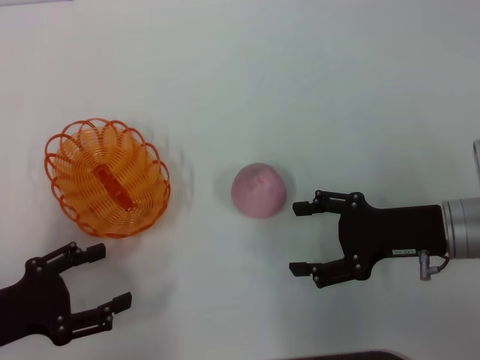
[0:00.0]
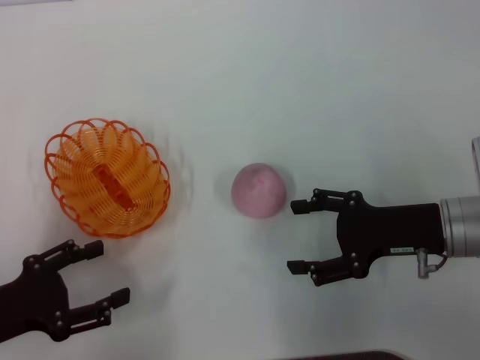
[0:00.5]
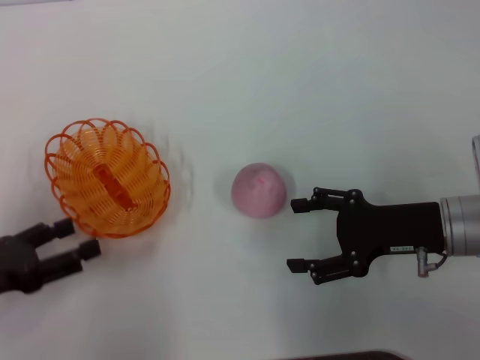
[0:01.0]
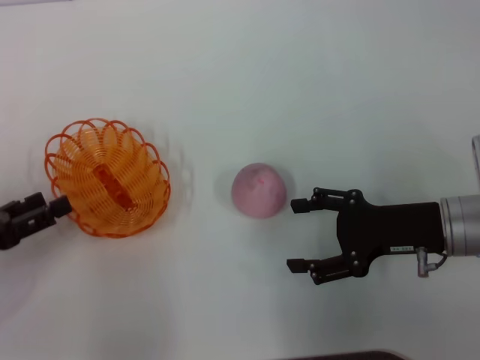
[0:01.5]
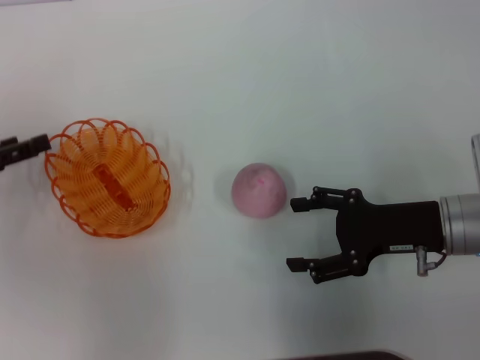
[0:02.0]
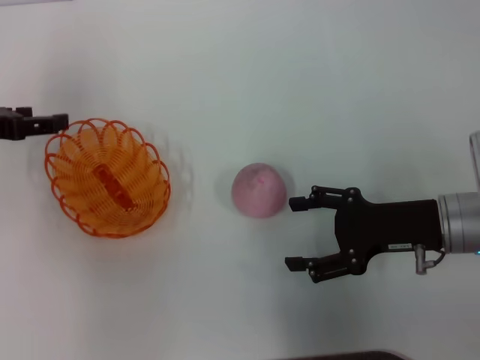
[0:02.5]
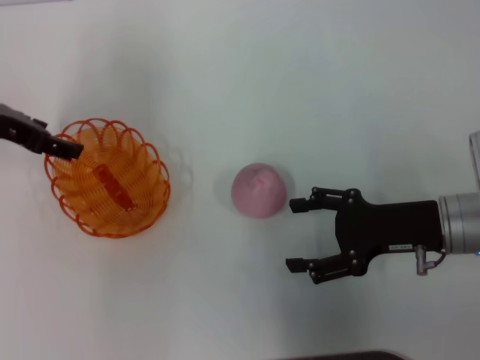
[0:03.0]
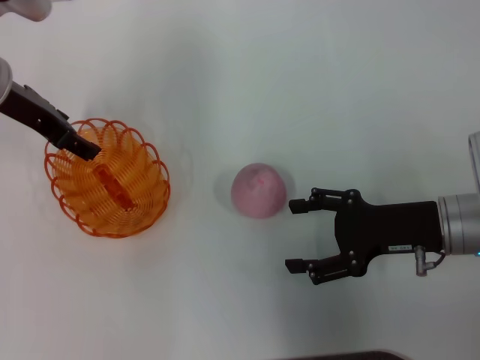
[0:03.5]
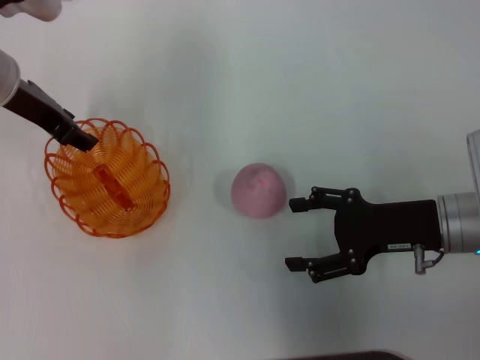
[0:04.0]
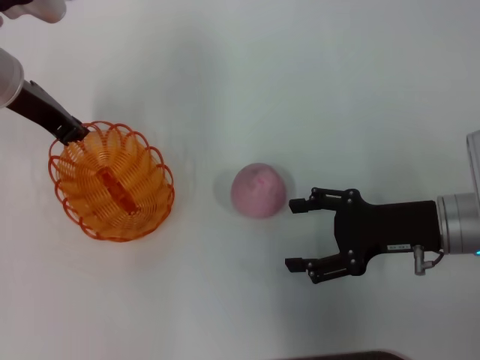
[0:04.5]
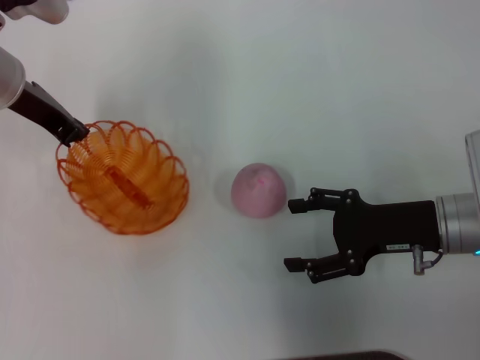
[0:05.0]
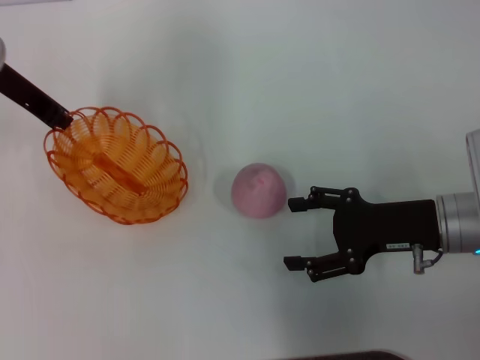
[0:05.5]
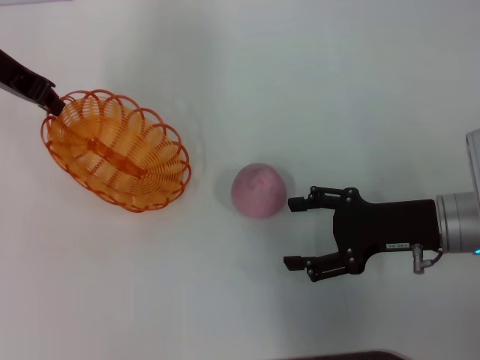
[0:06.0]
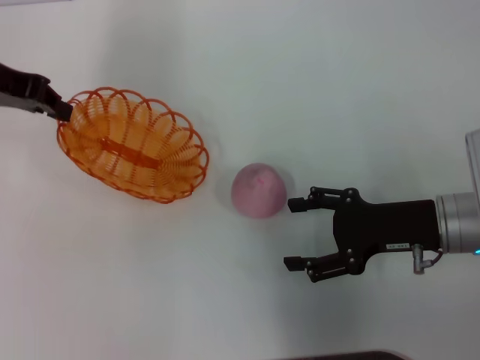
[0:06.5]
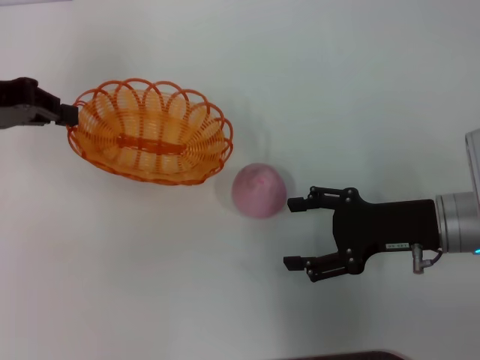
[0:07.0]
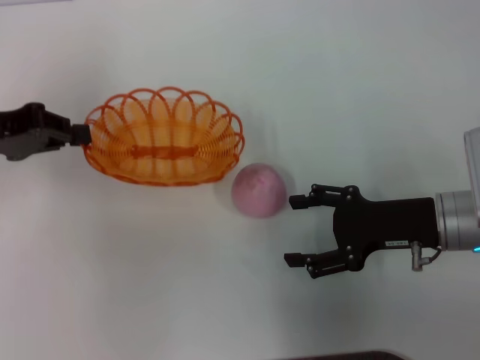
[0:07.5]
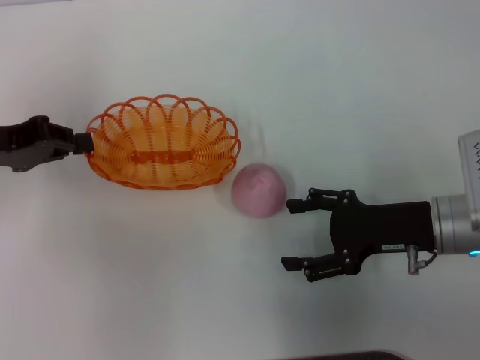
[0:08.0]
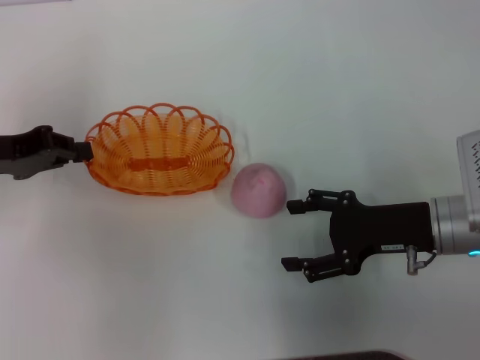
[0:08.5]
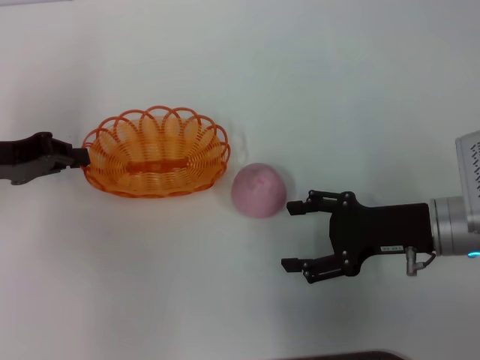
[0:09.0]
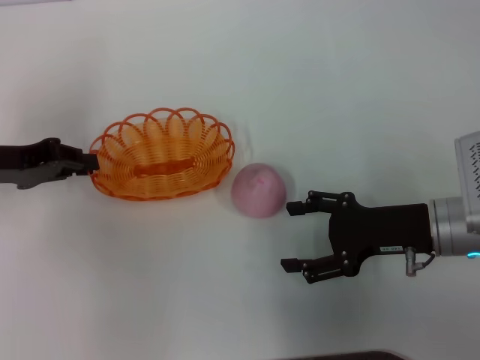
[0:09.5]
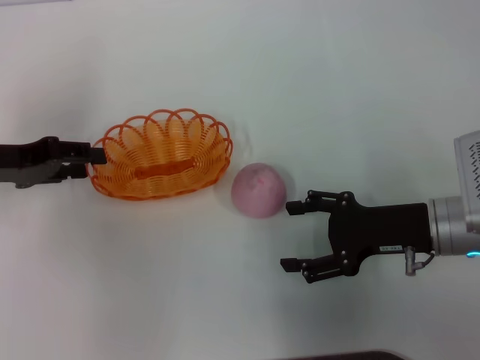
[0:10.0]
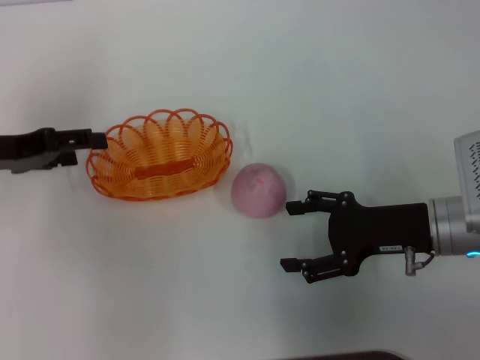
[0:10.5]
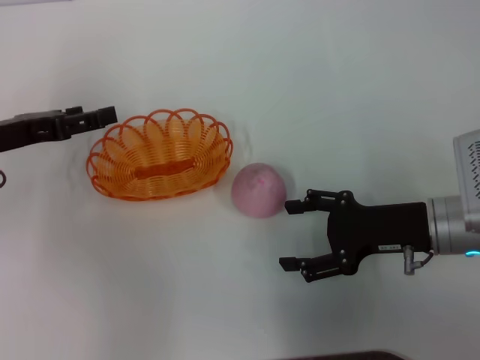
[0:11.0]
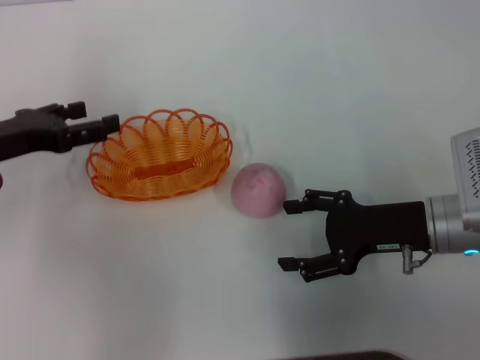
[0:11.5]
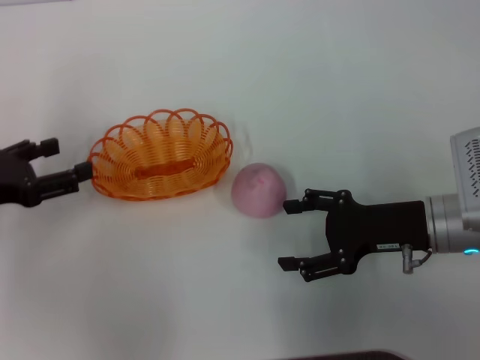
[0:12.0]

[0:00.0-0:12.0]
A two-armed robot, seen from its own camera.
Step, 0:00.0 to 0:05.5: Pick up the basket with the left gripper.
Step, 0:06.0 to 0:10.0: Place the basket in the center of view with the left gripper.
0:00.0 to 0:02.0: The left gripper goes about 10 cm forward.
0:02.0 to 0:04.0: The left gripper travels to the right, forward and upward by approximately 20 cm.
0:04.0 to 0:06.0: The left gripper heads upward, covering roughly 5 cm, and closes its fingers.
0:06.0 to 0:08.0: The left gripper is displaced backward, downward and to the left by roughly 15 cm.
0:08.0 to 0:10.0: The left gripper opens its fingers.
0:10.0 to 0:12.0: The left gripper shifts roughly 5 cm backward, and opens up.

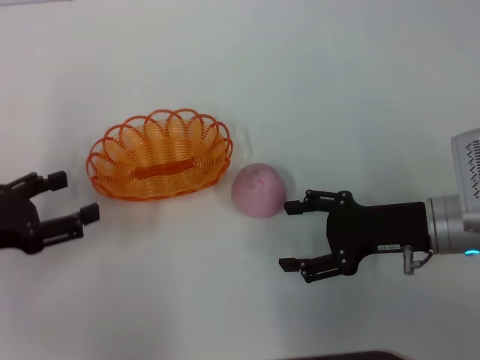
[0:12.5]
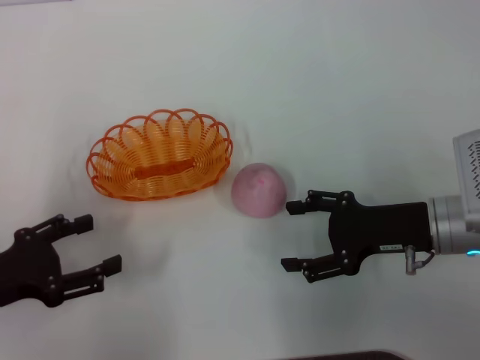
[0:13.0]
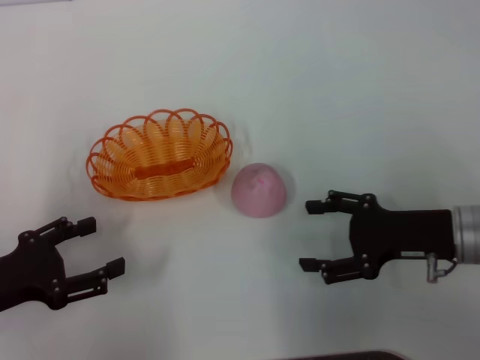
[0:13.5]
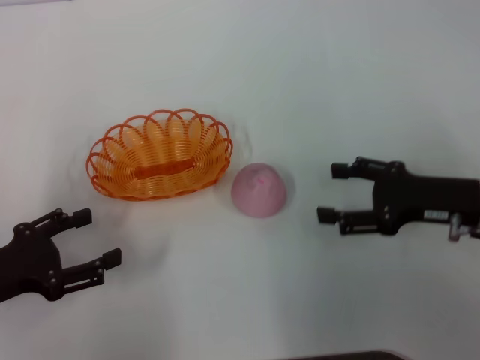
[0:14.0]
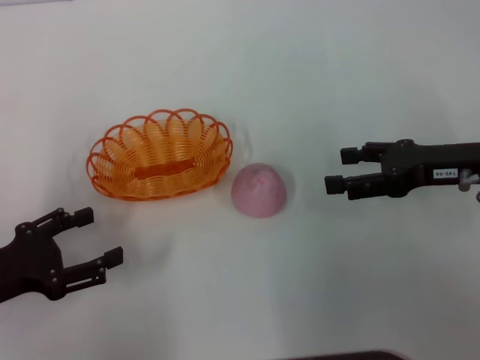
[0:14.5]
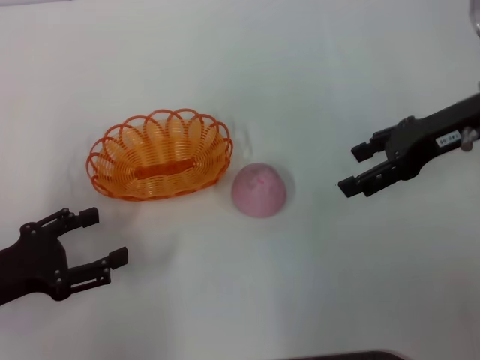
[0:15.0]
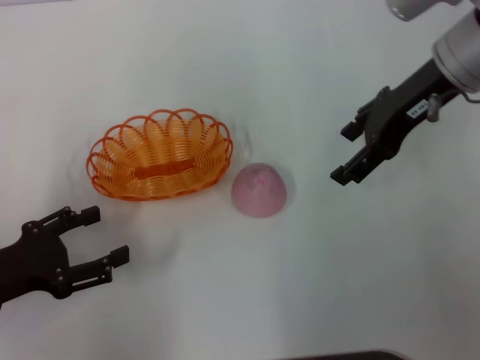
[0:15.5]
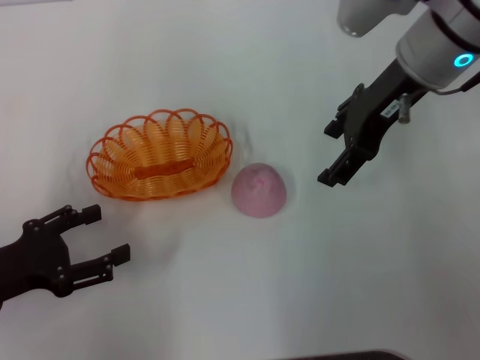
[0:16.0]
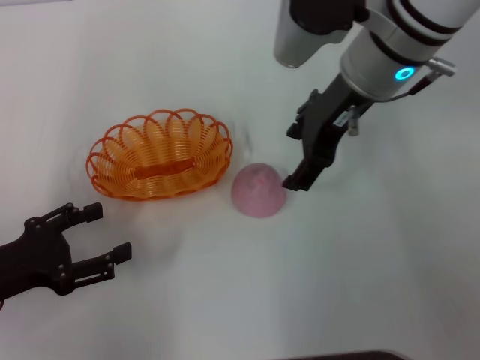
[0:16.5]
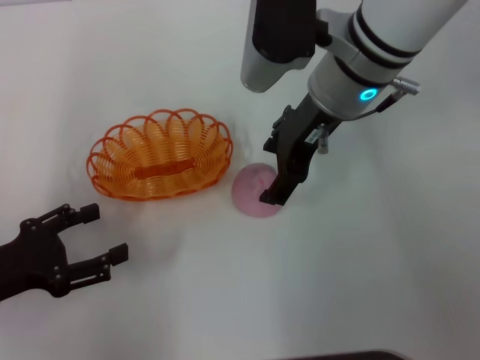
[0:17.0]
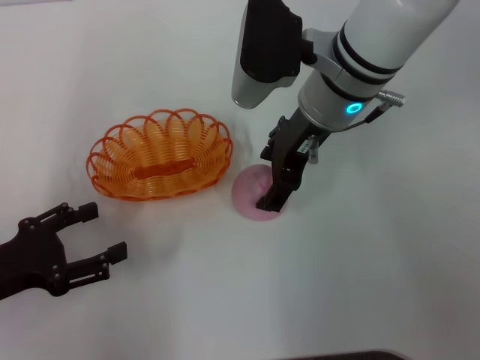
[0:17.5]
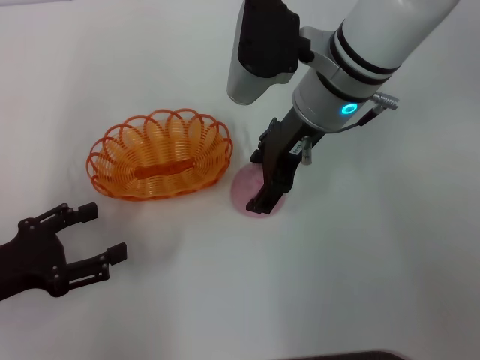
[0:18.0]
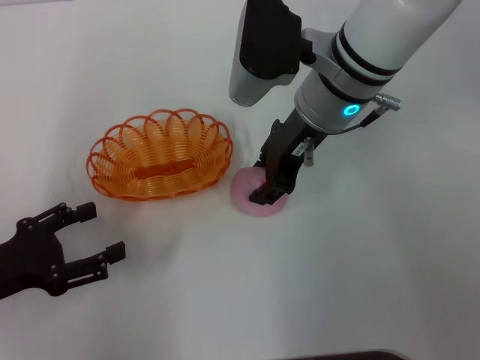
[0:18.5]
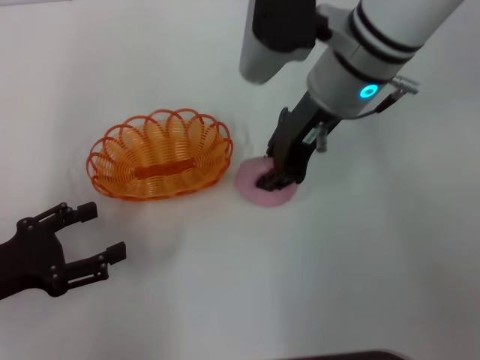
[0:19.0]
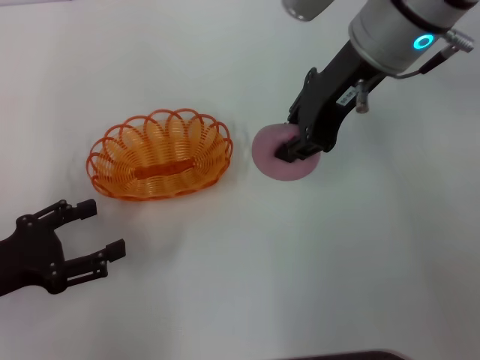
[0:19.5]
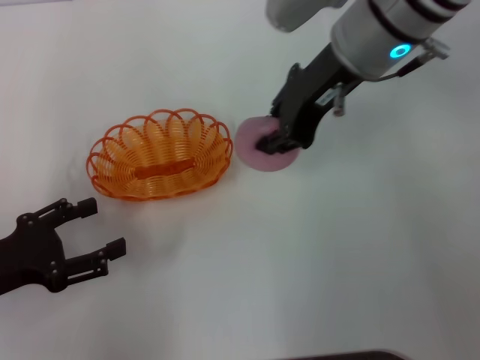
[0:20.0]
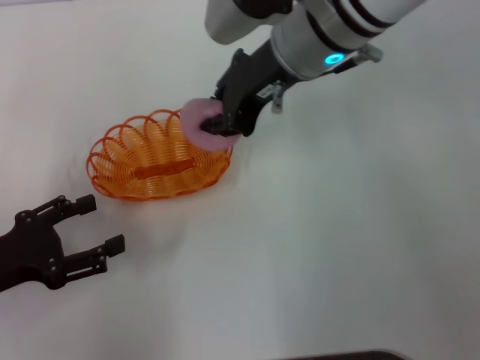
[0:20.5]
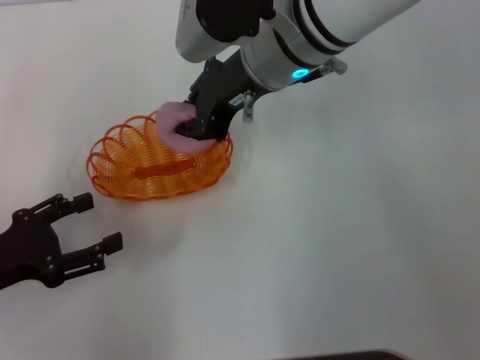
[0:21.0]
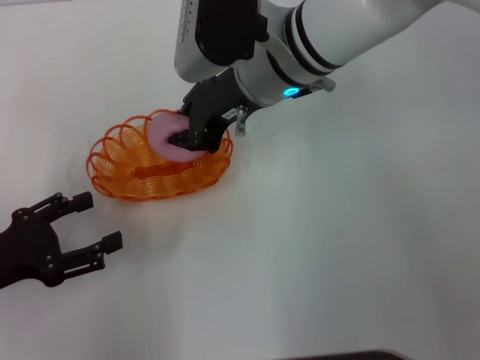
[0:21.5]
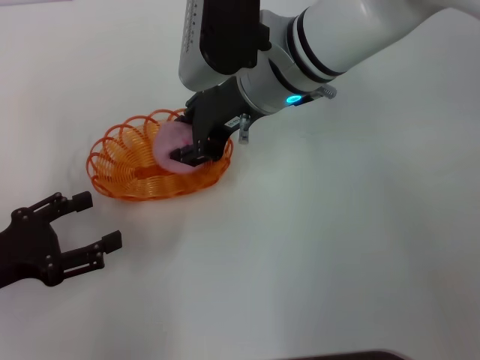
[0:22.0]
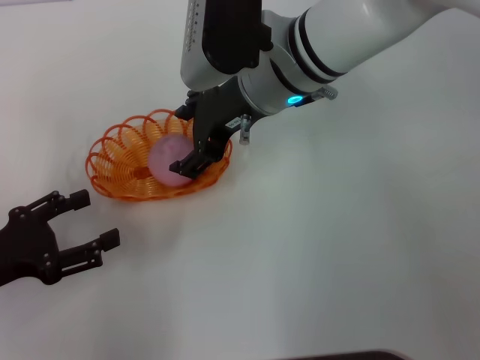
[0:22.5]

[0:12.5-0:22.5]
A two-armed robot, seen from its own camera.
Step, 0:12.5 to 0:19.5: Pick up the peach with the right gripper.
0:12.5 to 0:14.5: The right gripper travels upward by roughly 5 cm.
0:14.5 to 0:16.5: The right gripper shifts approximately 20 cm to the left, upward and forward.
0:16.5 to 0:18.5: The right gripper closes up.
0:18.5 to 0:20.5: The right gripper moves upward, some 5 cm, and closes its fingers.
0:20.5 to 0:22.5: The right gripper shifts by approximately 5 cm, and opens up.

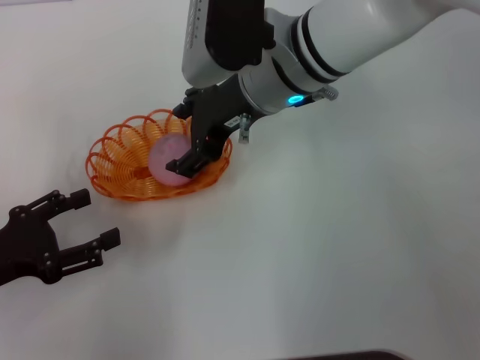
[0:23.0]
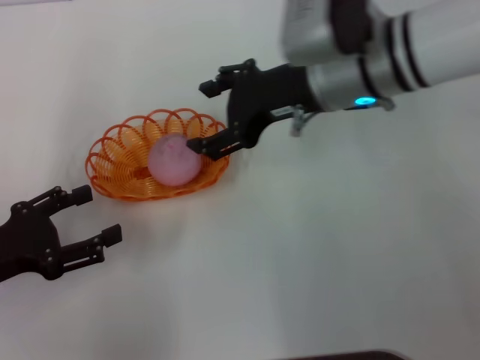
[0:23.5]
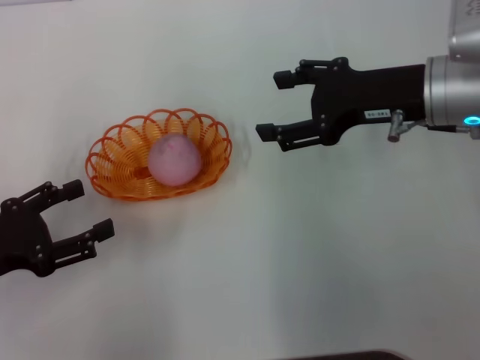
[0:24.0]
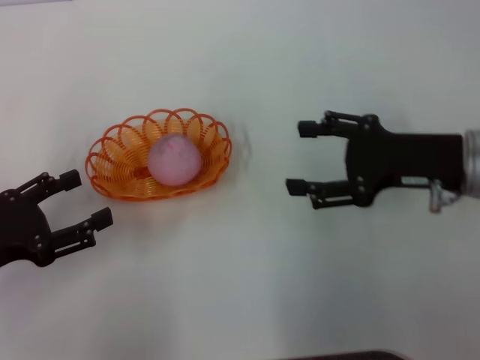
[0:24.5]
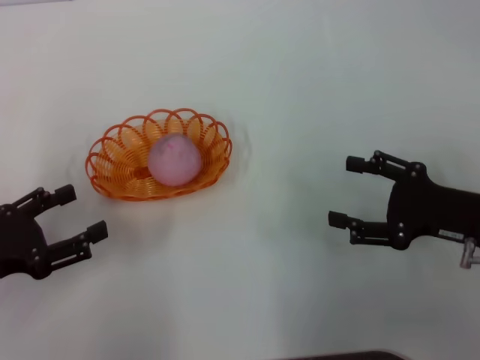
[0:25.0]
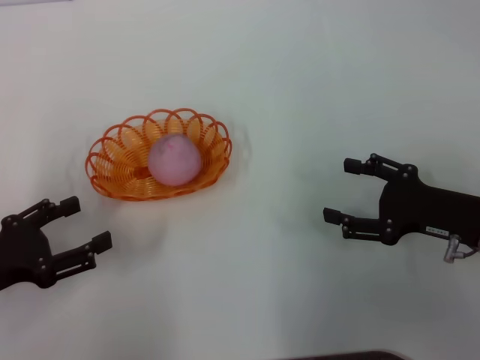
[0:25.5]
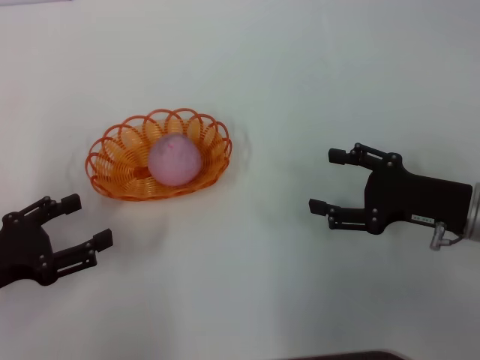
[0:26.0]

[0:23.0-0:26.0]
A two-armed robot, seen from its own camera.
0:23.0 to 0:24.5: The right gripper travels to the right and backward by roughly 20 cm.
0:24.5 to 0:26.0: The right gripper is displaced downward by approximately 5 cm.
